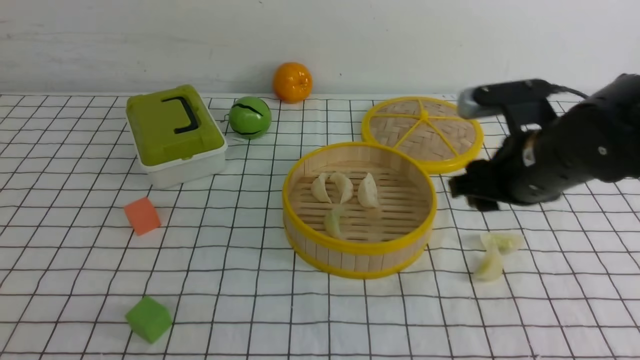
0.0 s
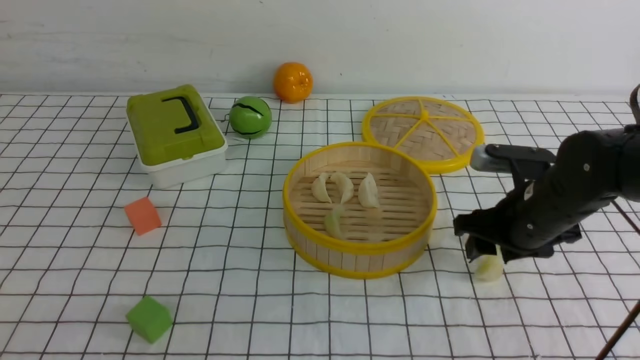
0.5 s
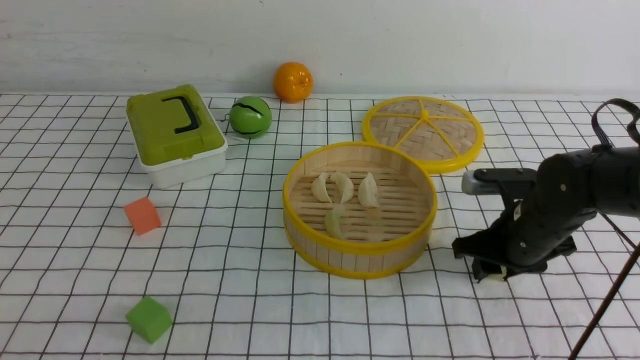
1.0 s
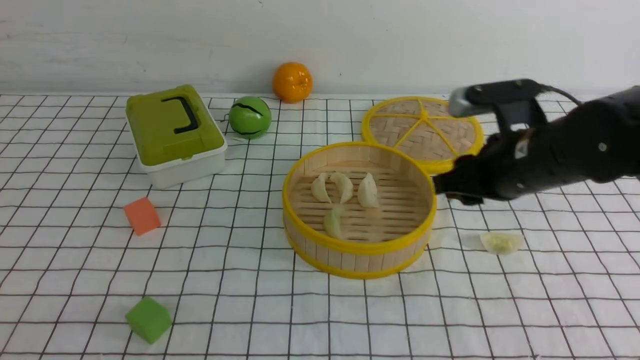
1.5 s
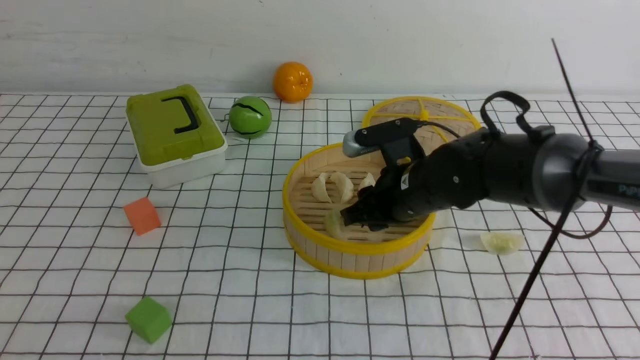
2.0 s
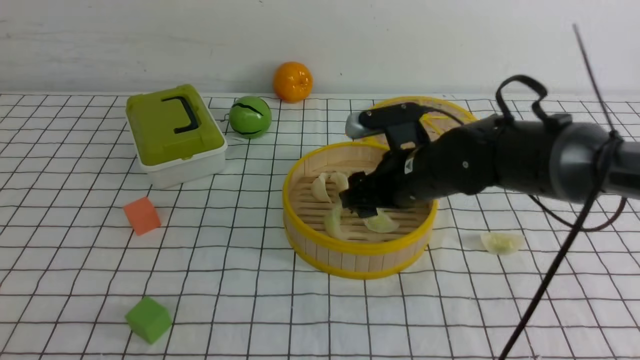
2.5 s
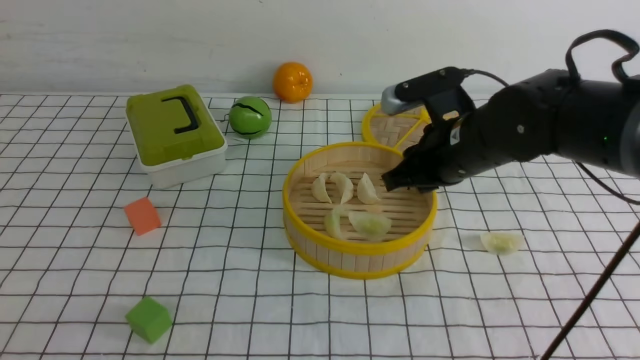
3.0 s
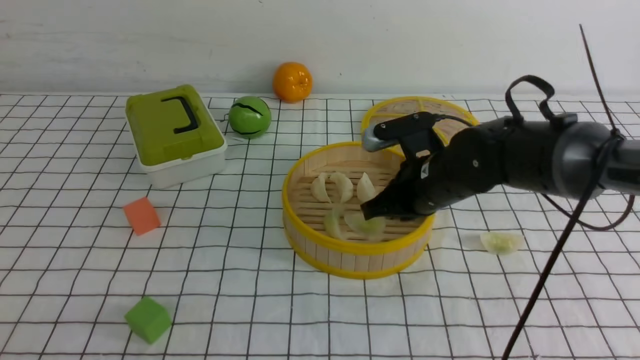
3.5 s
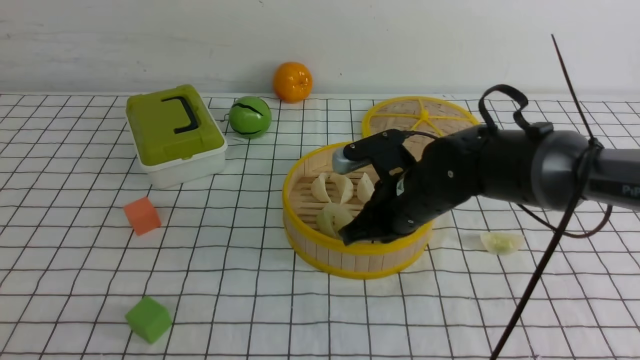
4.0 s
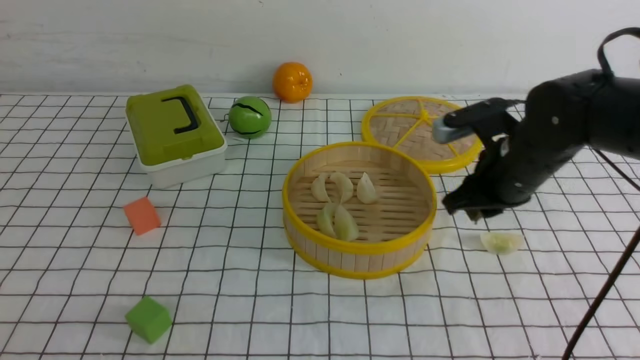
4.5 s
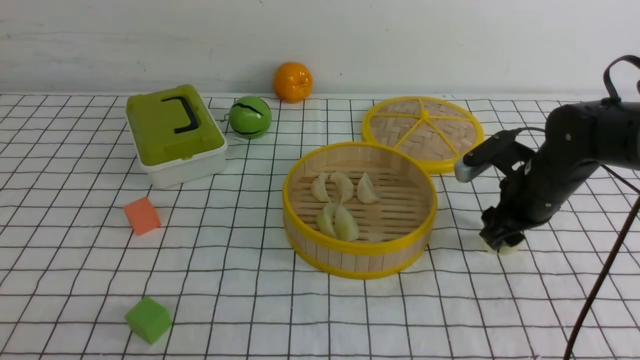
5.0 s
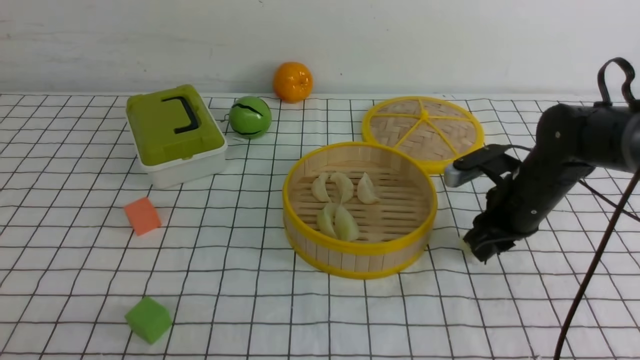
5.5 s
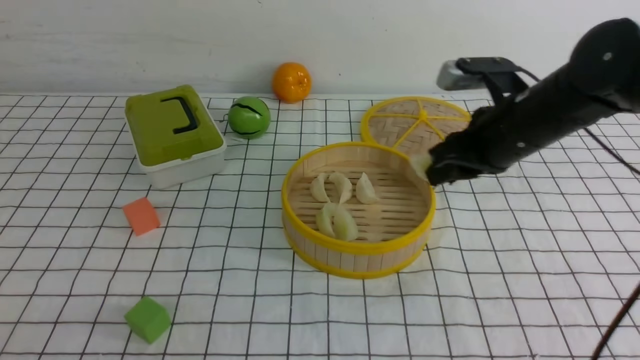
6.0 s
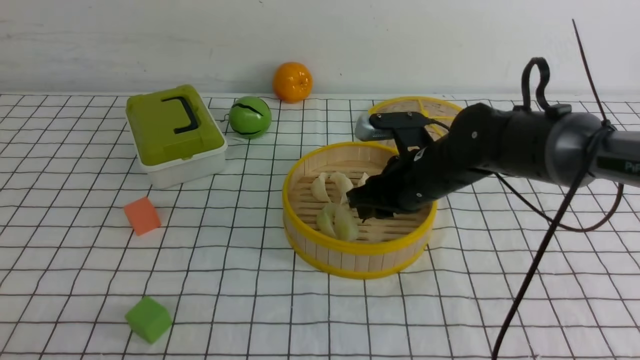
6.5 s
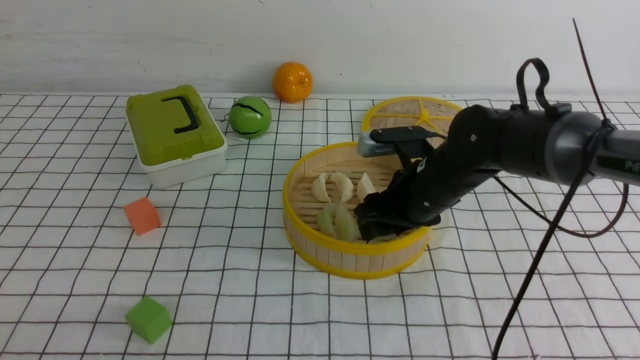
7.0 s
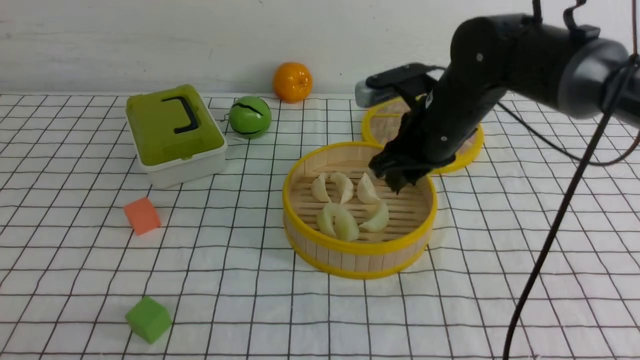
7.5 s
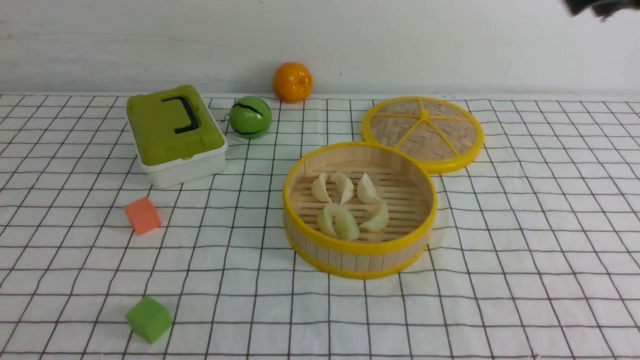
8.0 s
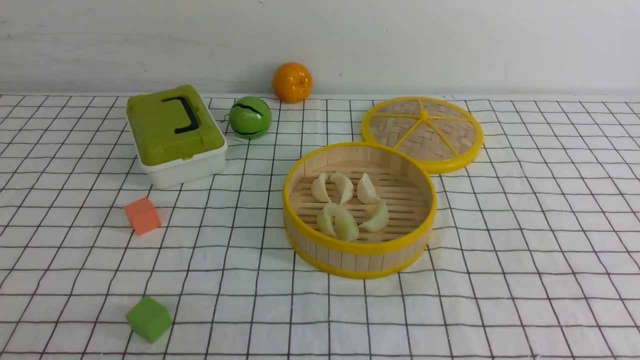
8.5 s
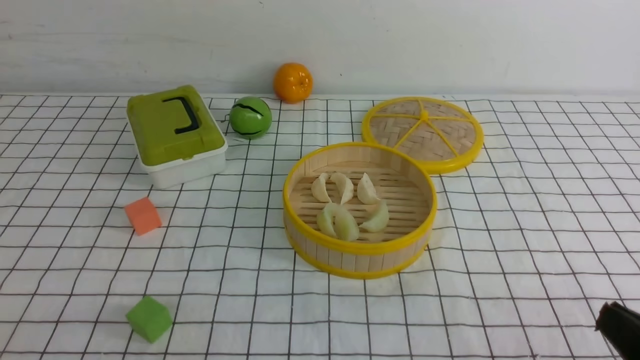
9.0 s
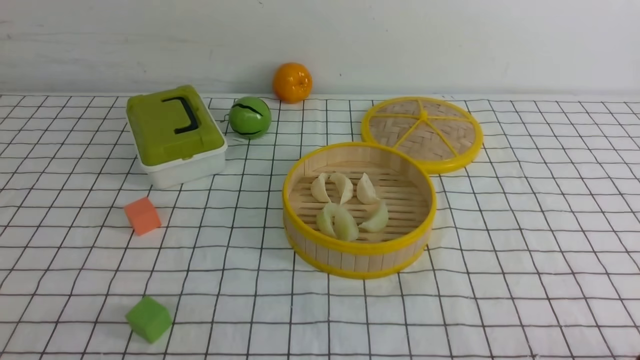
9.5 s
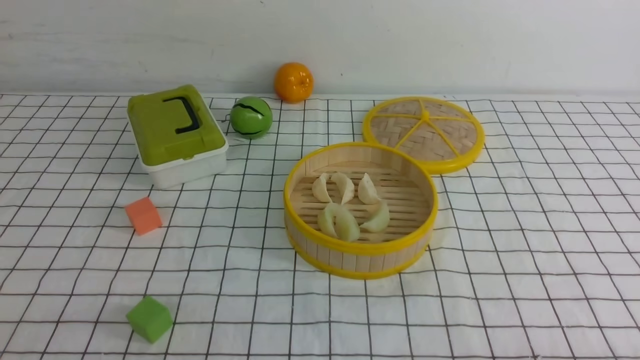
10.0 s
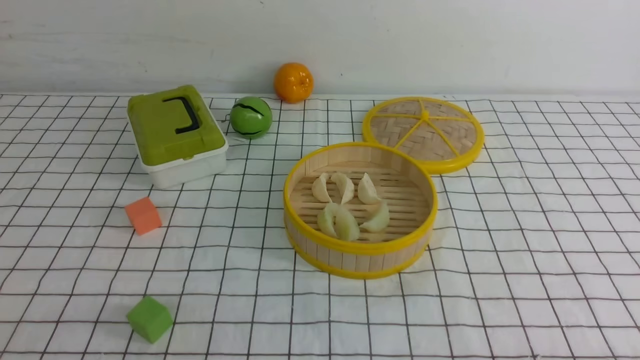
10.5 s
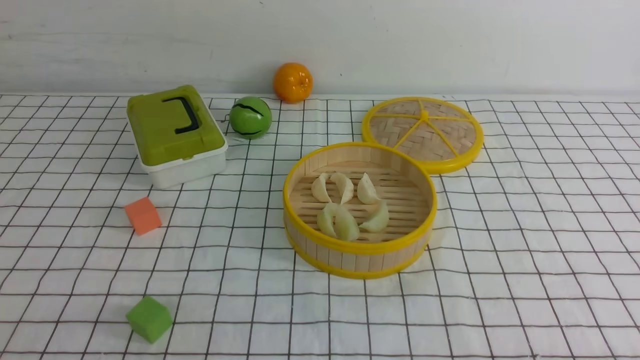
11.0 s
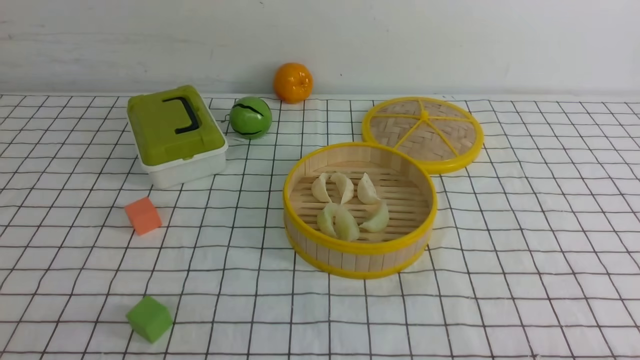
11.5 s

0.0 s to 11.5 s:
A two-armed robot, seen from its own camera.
Task of the whole recording: put the dumplings into the steamer on the table with the white tablecloth.
Step, 0.0 to 1.0 s: use the right arm to grab a dumpling.
Step, 1.5 to 2.5 s: use the right arm to put the dumpling into the steamer.
Step, 3.0 to 6.0 s: use the right arm to grab a dumpling.
Step, 6.5 to 7.5 s: use the right arm to put the dumpling into the steamer.
0.0 to 2.0 s: The right gripper goes roughly 10 cm to the left.
2.0 to 4.0 s: The right gripper closes up.
4.0 to 6.0 s: The right gripper heads to the right, covering about 10 cm, and opens up.
6.0 to 7.5 s: The right gripper ends up roughly 5 cm from where it was, and opens, then closes again.
7.5 to 9.5 s: The right gripper moves backward and to the right, about 35 cm, and closes its fingers.

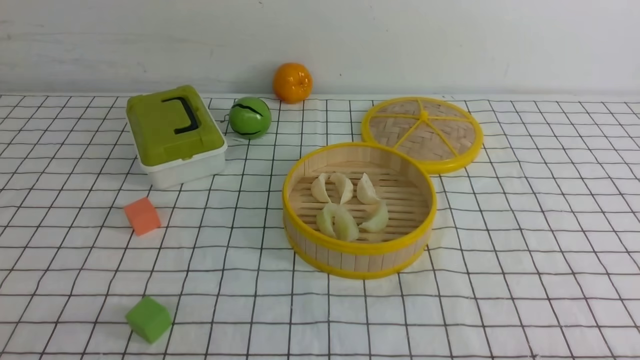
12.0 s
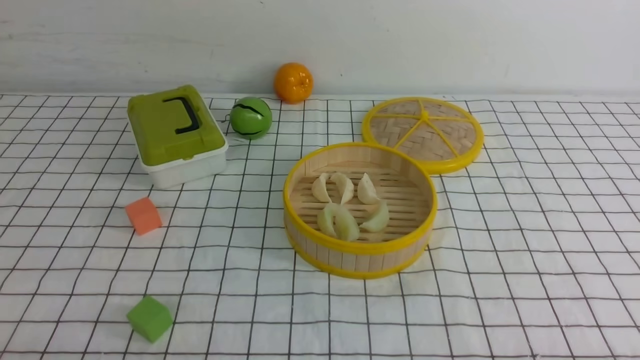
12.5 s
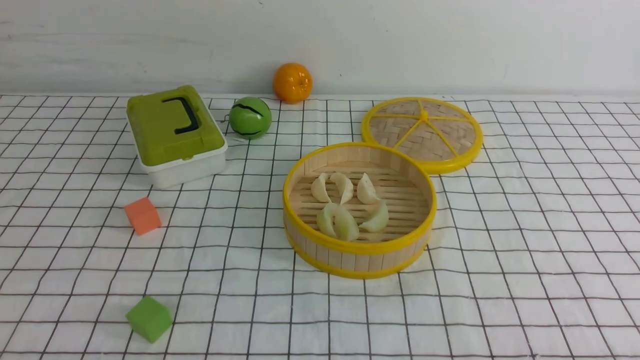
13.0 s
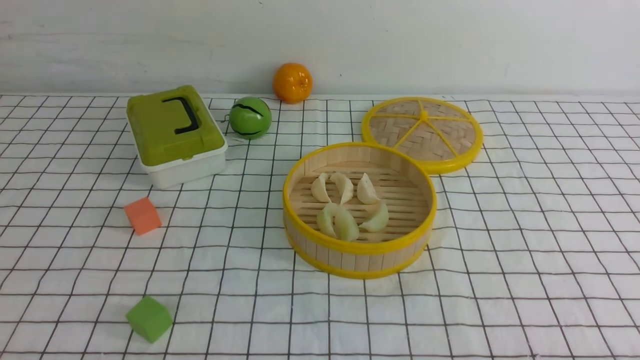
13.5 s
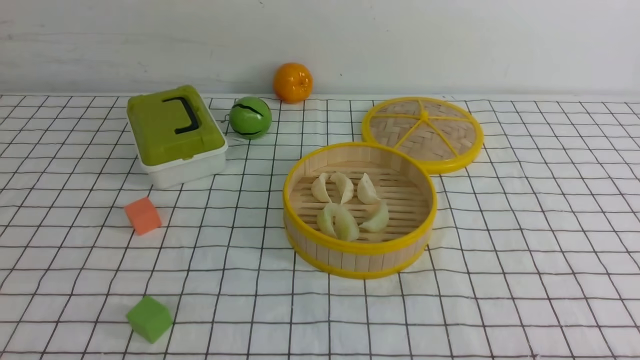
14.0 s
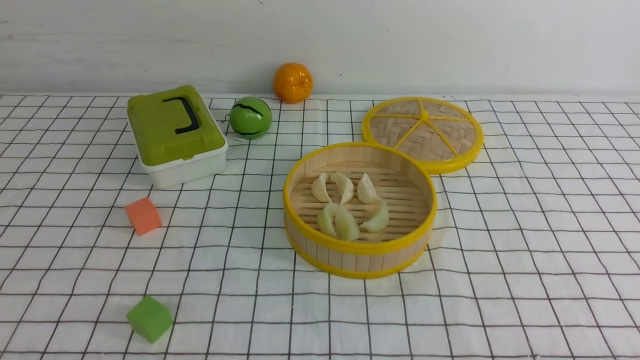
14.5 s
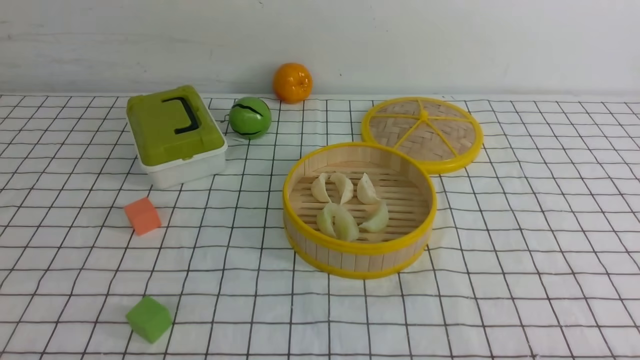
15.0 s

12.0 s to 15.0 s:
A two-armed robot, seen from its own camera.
Task of the whole recording: put the dumplings into the steamer on the table with the white tablecloth.
13.5 to 15.0 s: Both grippers stay put.

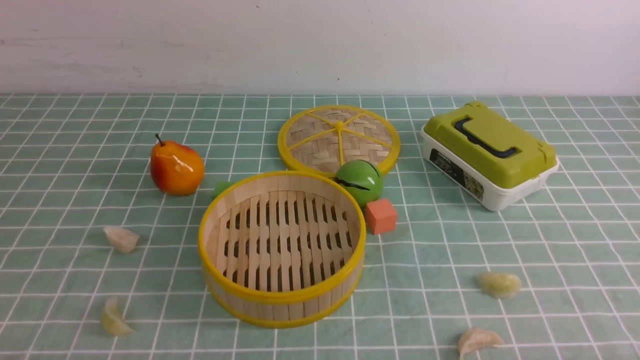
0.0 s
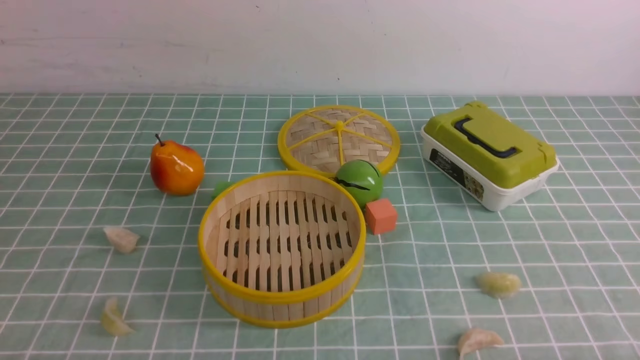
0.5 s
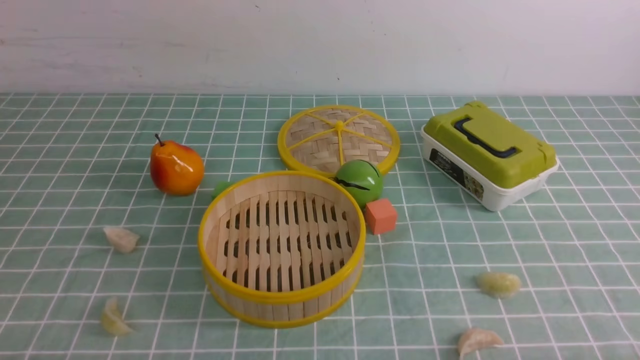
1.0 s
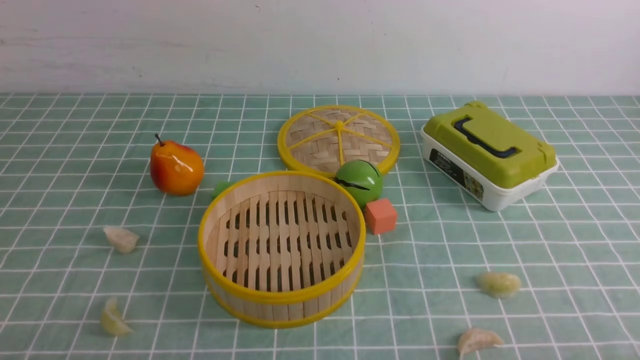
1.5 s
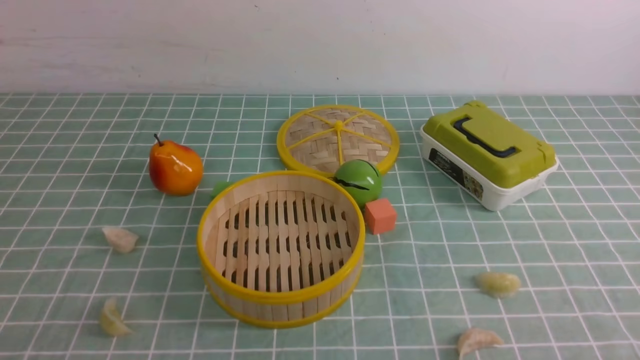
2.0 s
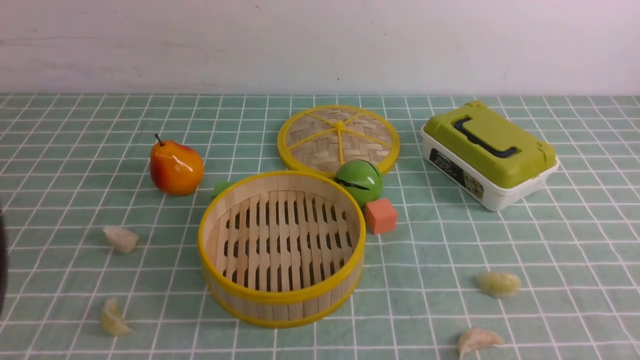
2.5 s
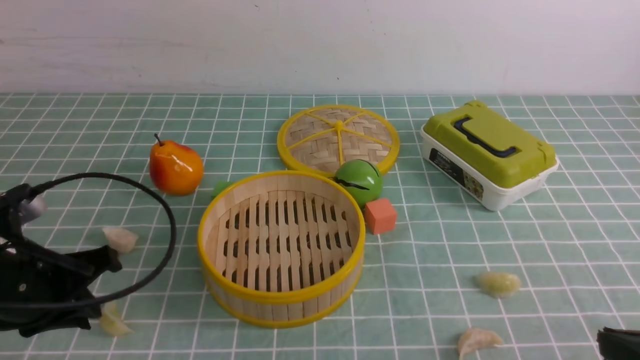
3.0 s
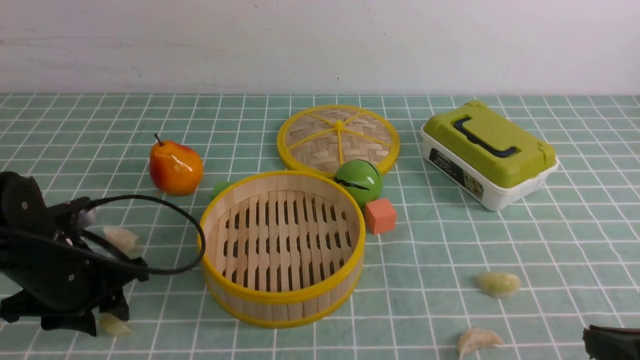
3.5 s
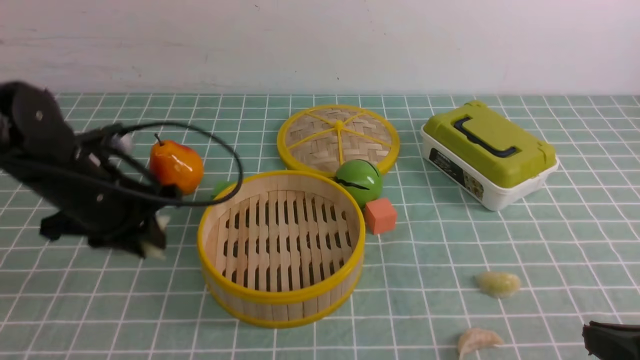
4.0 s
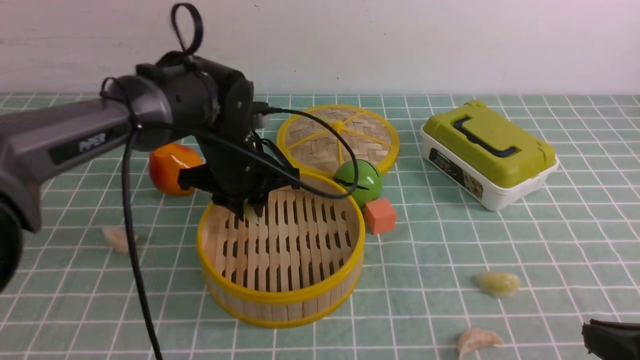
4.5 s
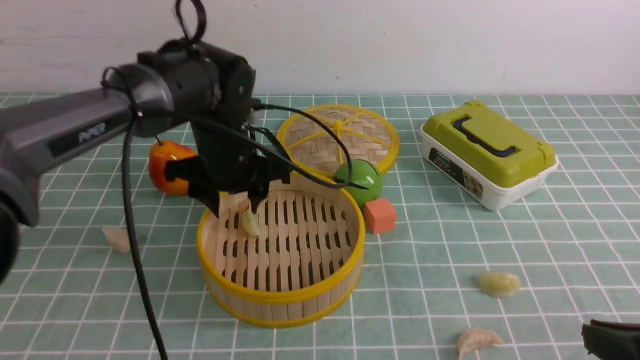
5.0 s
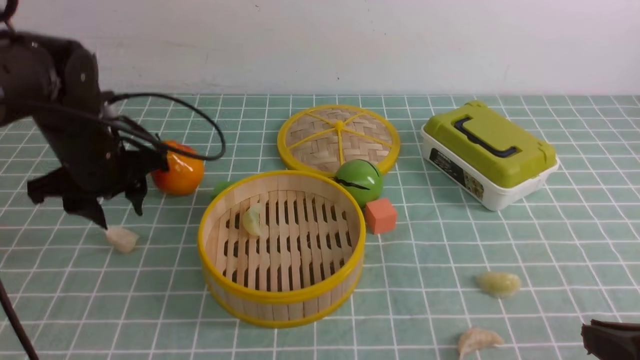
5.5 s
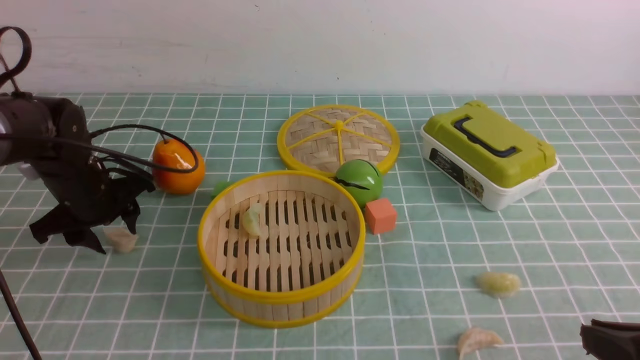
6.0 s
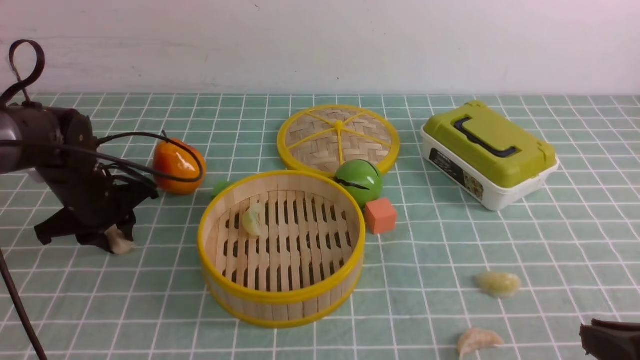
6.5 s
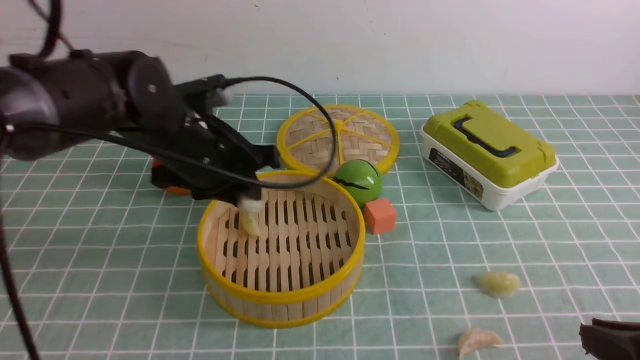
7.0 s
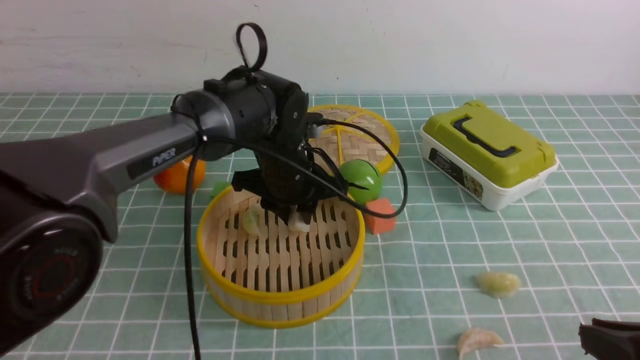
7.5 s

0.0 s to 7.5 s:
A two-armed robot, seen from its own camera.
Task of the whole recording: put the dumplings into the steamer on the table with the blue tablecloth.
Step, 0.0 to 3.5 s: use the left arm to grab a dumpling.
Step, 4.0 to 4.5 s: use the left arm to put the dumpling into the steamer.
Step, 5.0 to 6.5 s: use the left arm to grab a dumpling.
2.0 to 4.0 s: The right gripper goes some 10 cm forward, while the left gripper heads forward, covering about 30 cm.
4.0 to 5.5 s: The left gripper heads forward, covering approximately 5 cm, moves about 10 cm to the right and comes back, and opens.
5.5 to 7.5 s: The left gripper travels to the right by about 20 cm, and closes its fingers.
